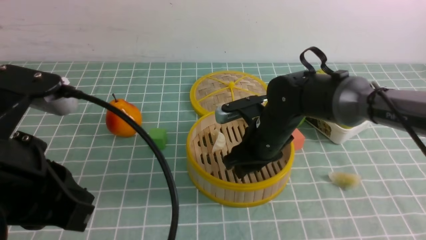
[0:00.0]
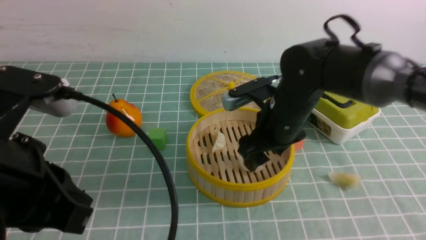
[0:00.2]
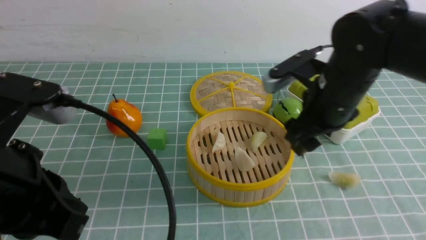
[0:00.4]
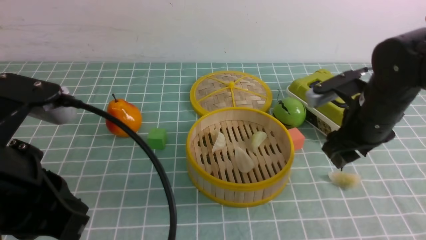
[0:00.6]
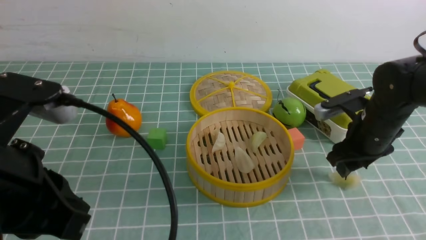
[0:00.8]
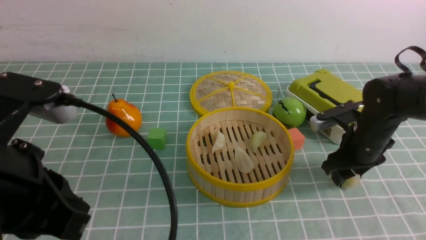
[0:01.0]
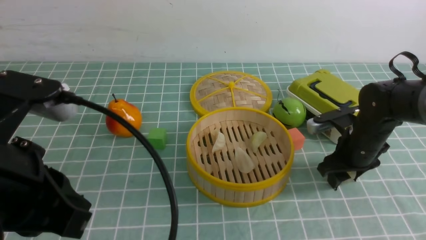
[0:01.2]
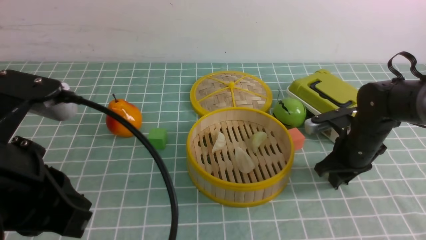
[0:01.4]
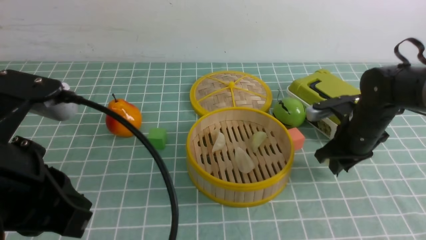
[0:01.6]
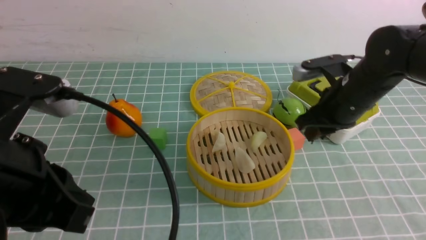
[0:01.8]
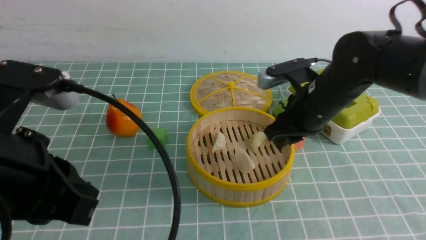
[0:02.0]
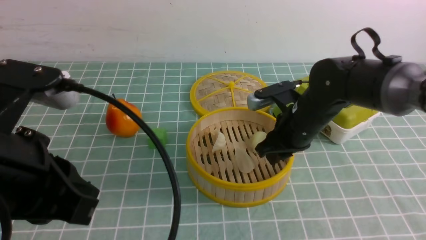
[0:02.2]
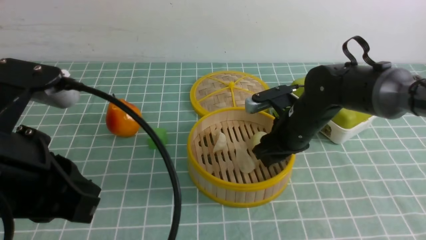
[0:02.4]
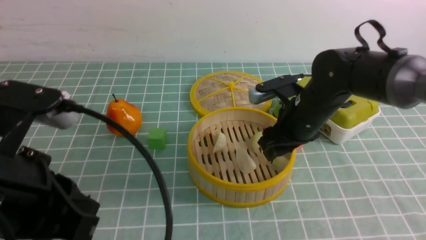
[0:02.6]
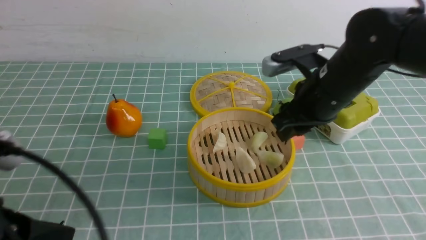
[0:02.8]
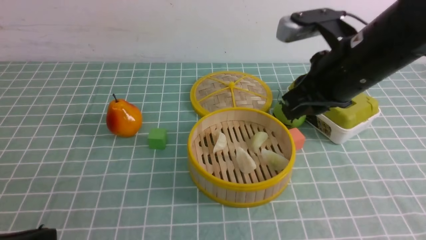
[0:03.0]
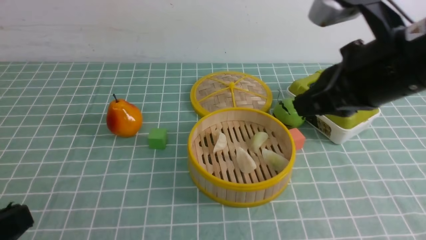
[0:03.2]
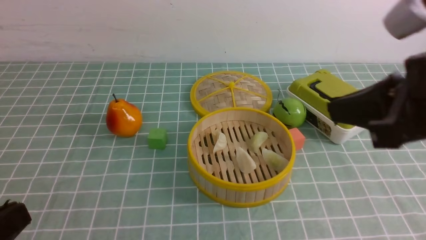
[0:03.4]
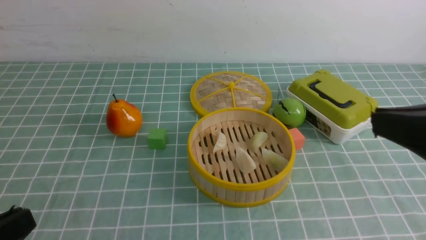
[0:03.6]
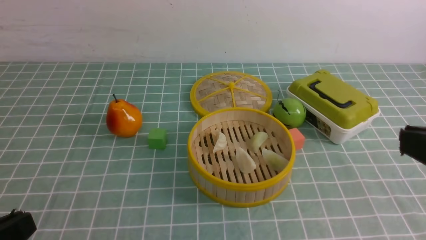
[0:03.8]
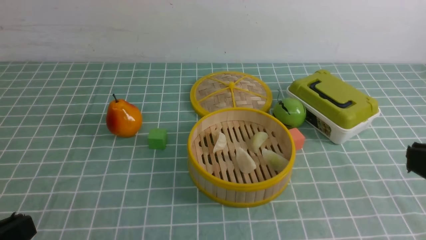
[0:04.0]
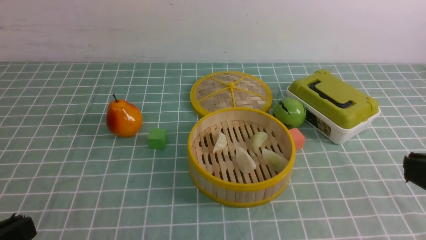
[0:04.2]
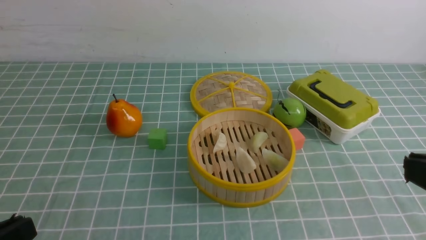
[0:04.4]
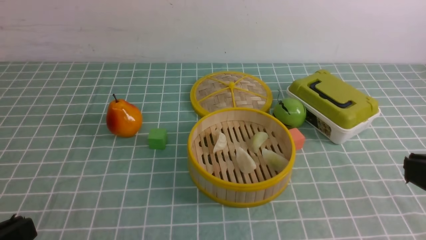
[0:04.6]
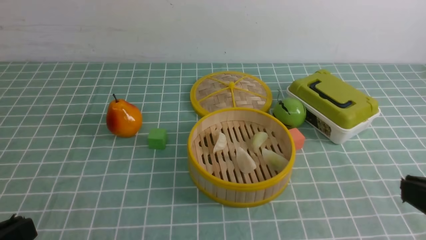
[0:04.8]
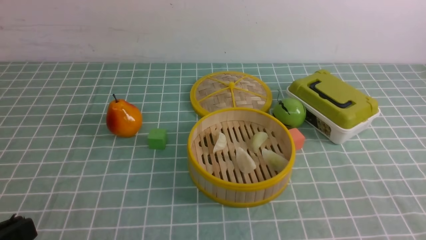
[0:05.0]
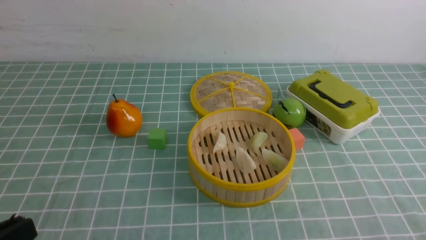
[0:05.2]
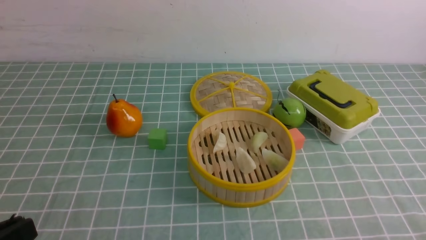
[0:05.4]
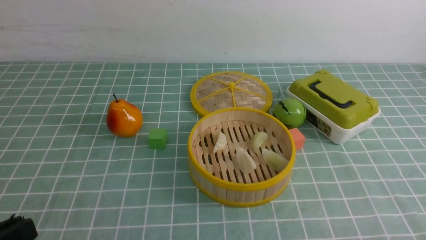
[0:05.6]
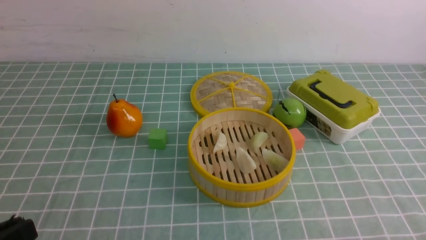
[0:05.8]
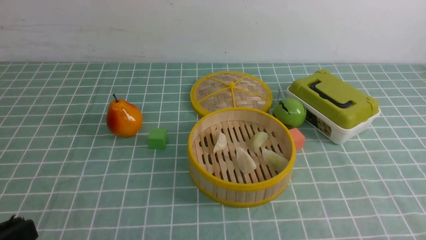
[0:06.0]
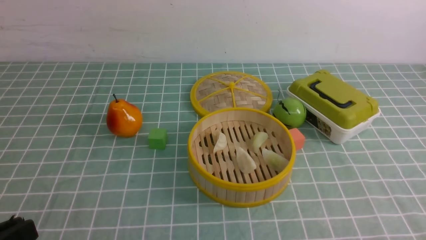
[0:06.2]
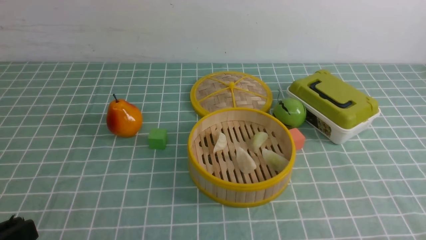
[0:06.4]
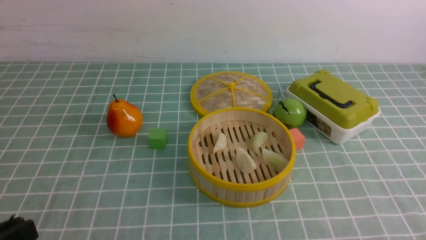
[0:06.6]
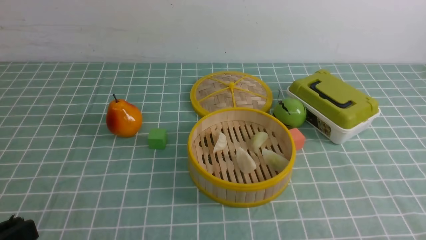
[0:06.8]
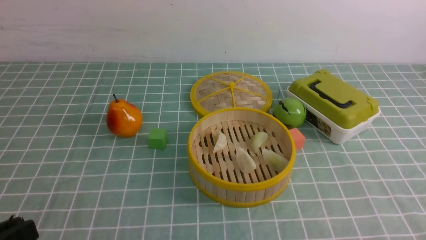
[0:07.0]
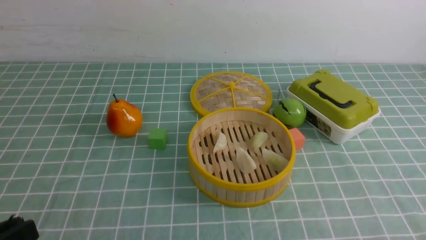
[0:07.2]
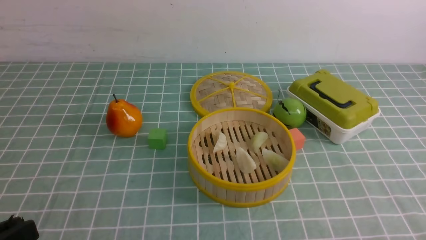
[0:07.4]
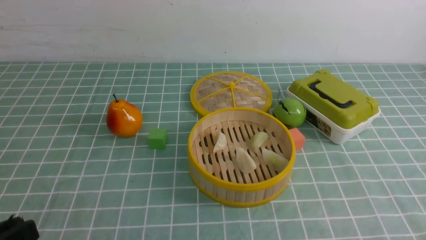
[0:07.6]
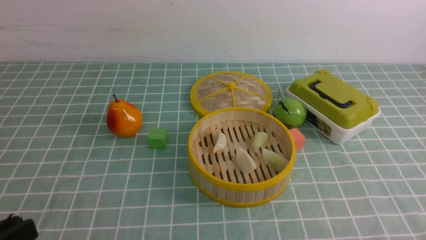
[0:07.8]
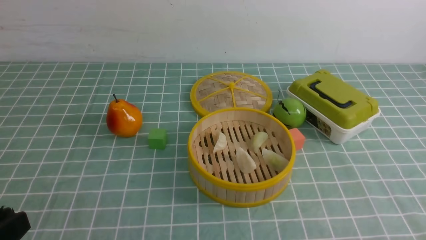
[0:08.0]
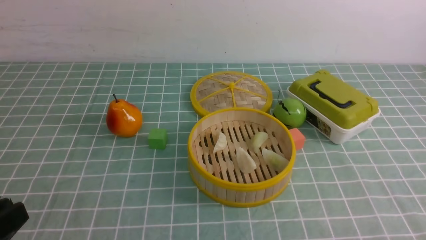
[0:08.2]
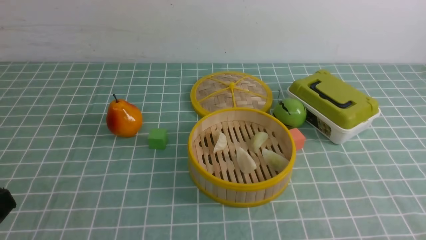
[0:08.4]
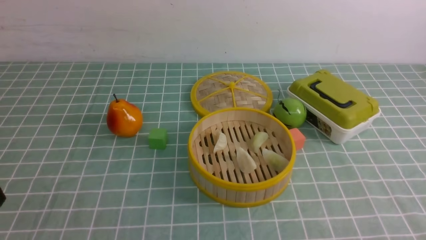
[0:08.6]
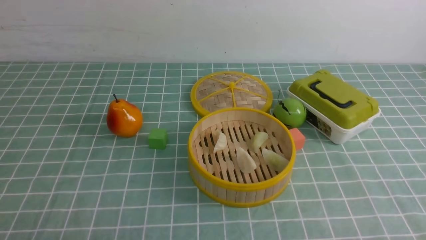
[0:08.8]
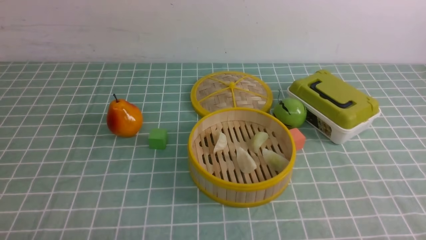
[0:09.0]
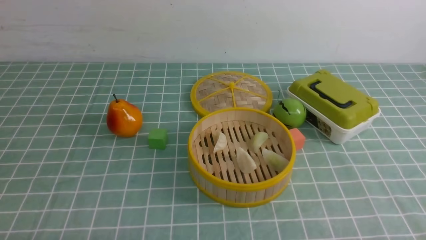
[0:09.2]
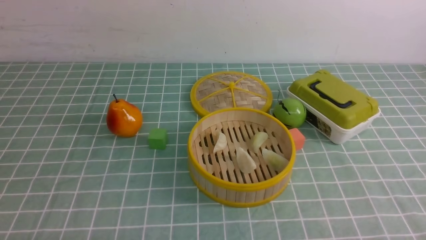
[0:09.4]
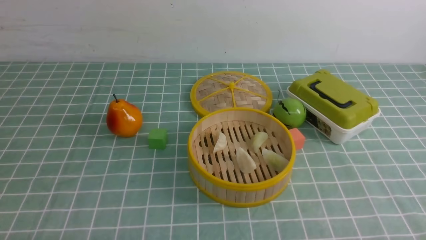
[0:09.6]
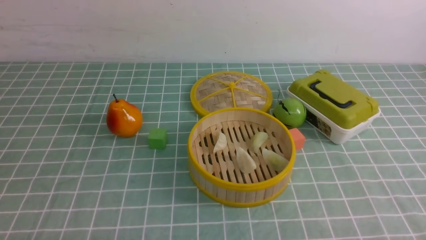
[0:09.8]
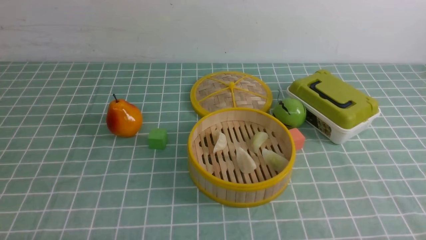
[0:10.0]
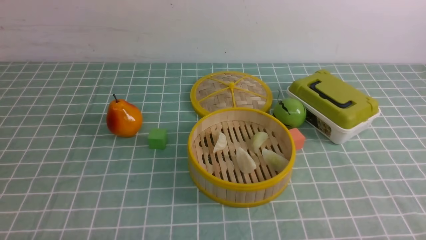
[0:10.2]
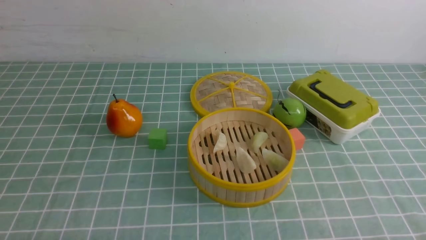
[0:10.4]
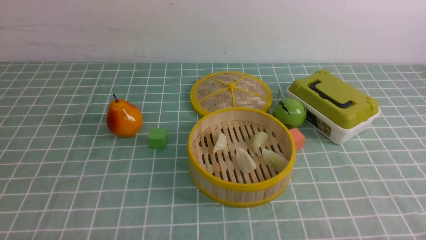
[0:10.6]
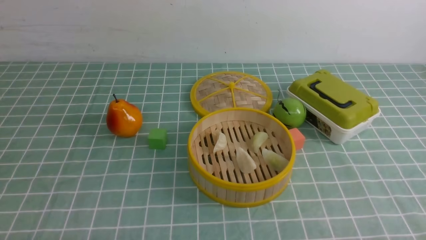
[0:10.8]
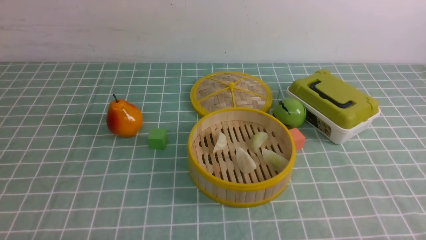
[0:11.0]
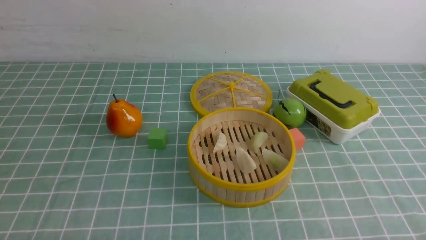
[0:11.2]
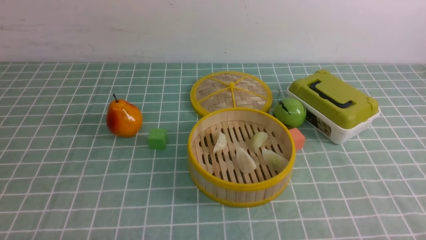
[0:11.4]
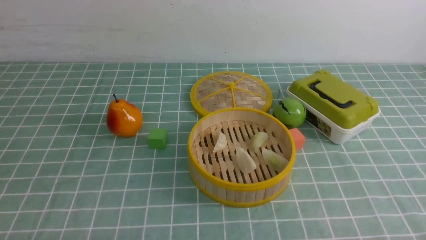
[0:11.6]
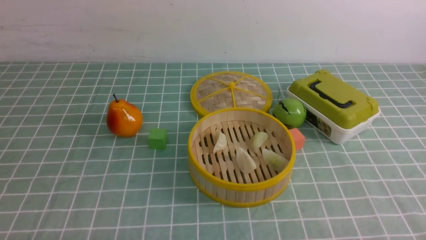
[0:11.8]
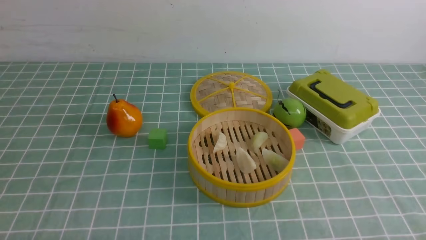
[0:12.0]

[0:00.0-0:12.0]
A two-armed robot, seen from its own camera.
Task of the whole recording: put the dumplings into the steamer on the table with the blue tablecloth.
Step, 0:00.4 to 0:01.2: use the right arm to grab a dumpling.
Step, 0:01.4 to 0:02.6: use the right arm to put the dumpling into the steamer.
0:00.0 to 0:01.6: The right gripper heads to the right, covering roughly 15 cm, and closes.
0:01.6 to 0:03.0: The right gripper shifts about 20 cm upward, backward and to the left, and opens and closes again; the left gripper heads backward, downward and to the left, covering approximately 10 cm.
0:03.0 to 0:04.4: The right gripper travels backward and to the right by about 20 cm.
0:04.4 to 0:06.0: The right gripper shifts approximately 20 cm downward.
0:06.0 to 0:07.6: The two grippers keep their place.
0:07.6 to 0:09.0: The left gripper heads downward, covering some 10 cm.
0:10.4 to 0:12.0: Both grippers stay put.
